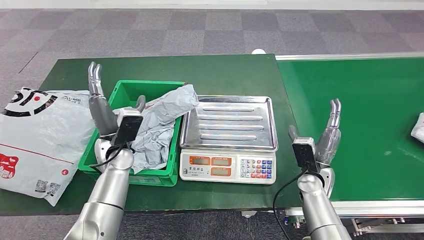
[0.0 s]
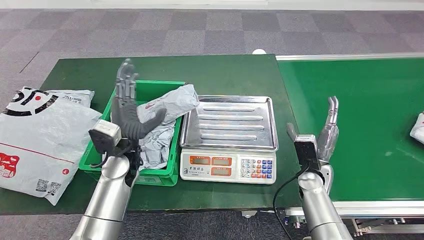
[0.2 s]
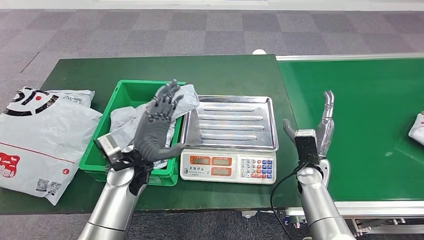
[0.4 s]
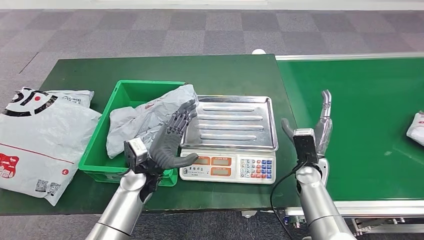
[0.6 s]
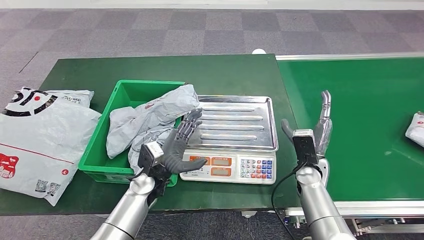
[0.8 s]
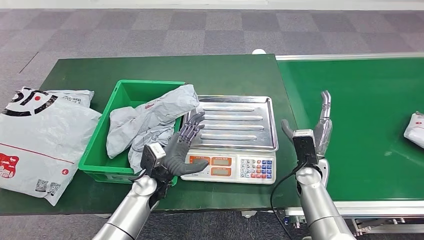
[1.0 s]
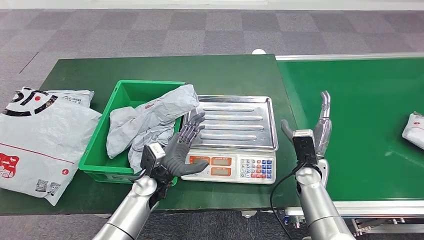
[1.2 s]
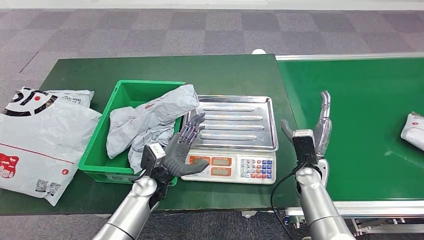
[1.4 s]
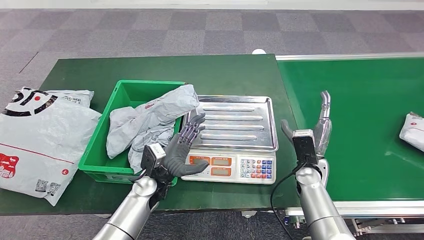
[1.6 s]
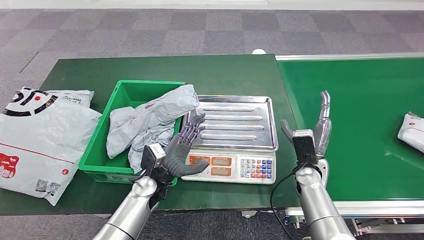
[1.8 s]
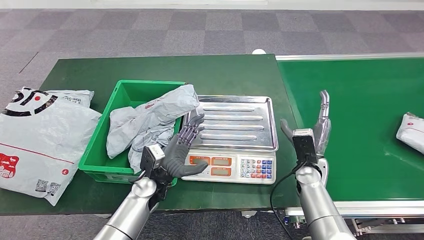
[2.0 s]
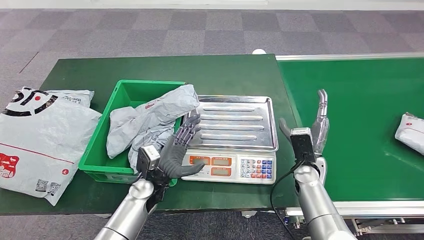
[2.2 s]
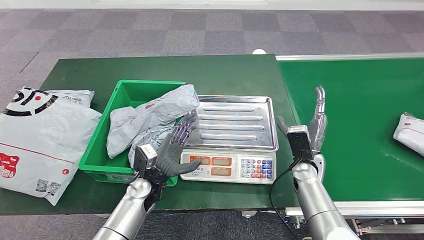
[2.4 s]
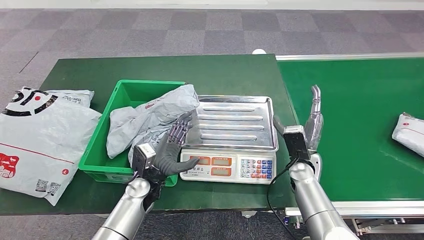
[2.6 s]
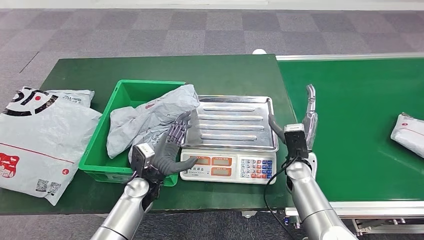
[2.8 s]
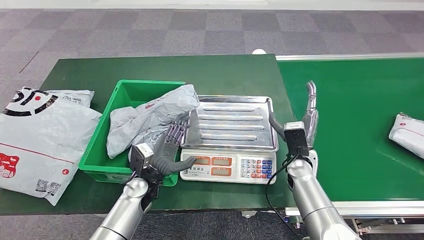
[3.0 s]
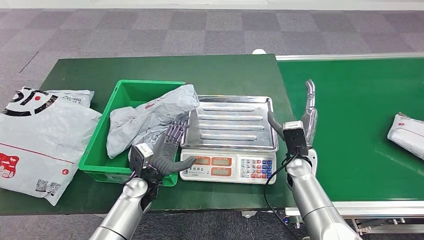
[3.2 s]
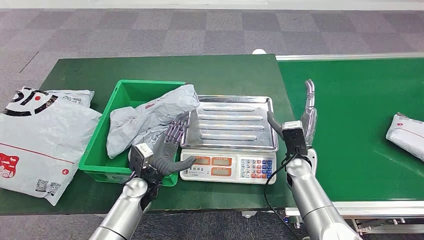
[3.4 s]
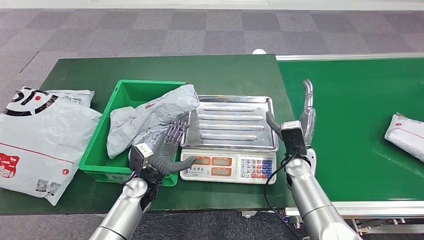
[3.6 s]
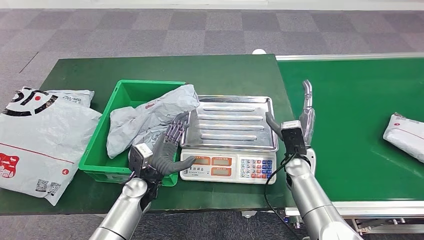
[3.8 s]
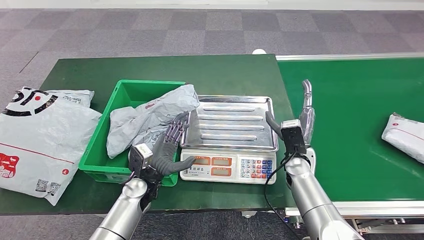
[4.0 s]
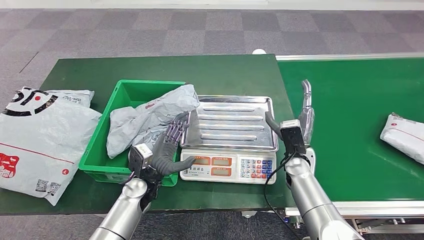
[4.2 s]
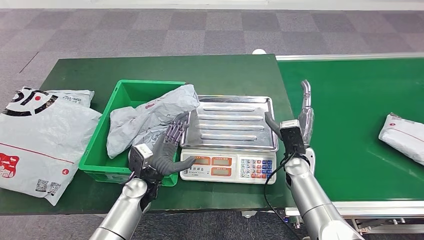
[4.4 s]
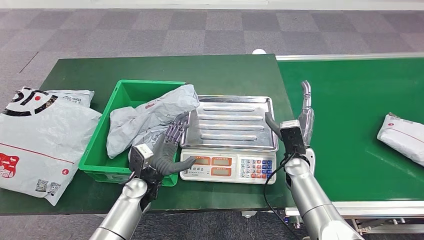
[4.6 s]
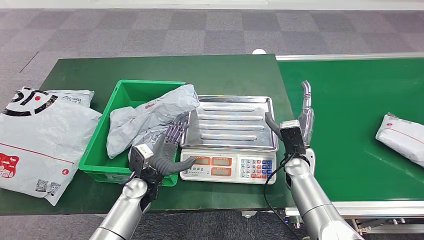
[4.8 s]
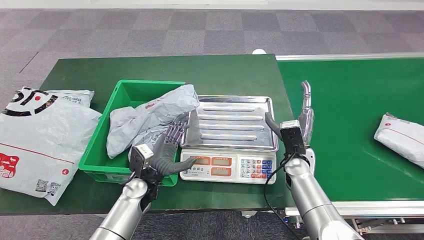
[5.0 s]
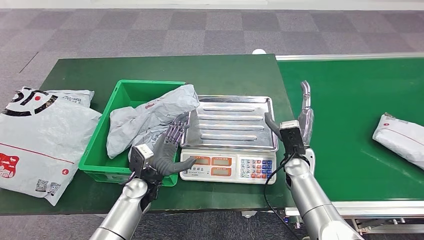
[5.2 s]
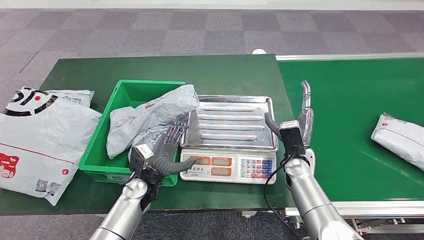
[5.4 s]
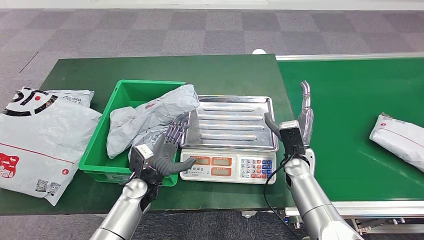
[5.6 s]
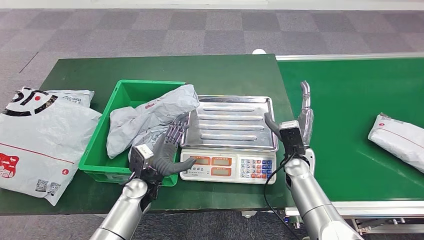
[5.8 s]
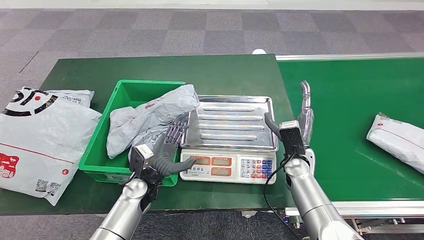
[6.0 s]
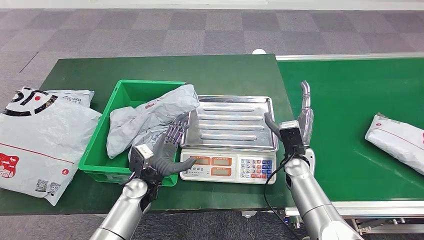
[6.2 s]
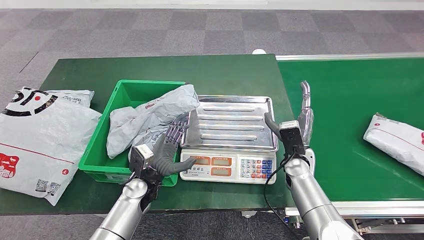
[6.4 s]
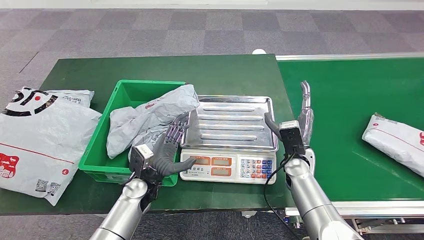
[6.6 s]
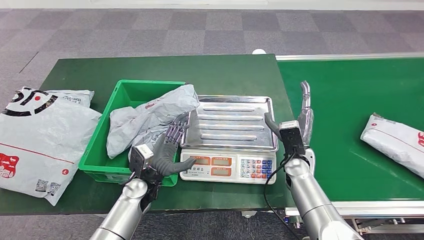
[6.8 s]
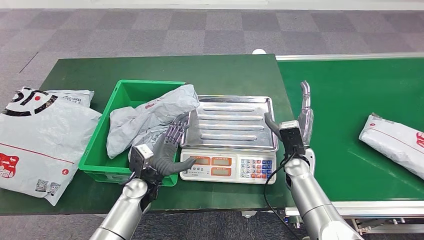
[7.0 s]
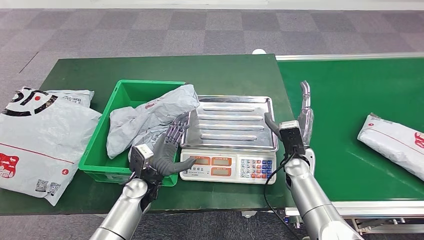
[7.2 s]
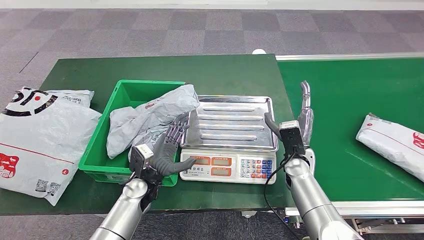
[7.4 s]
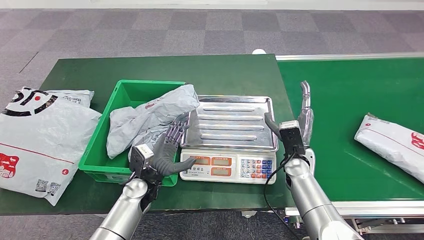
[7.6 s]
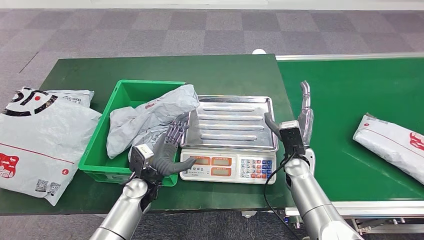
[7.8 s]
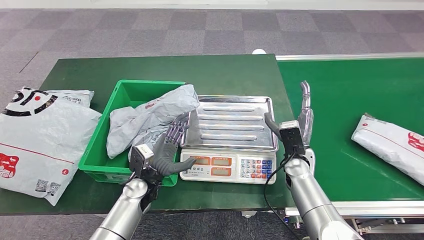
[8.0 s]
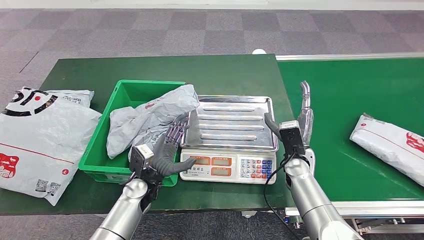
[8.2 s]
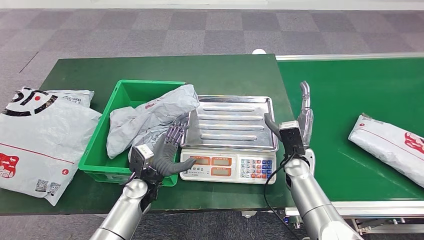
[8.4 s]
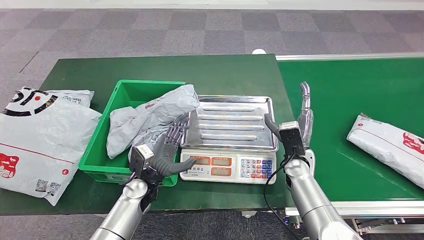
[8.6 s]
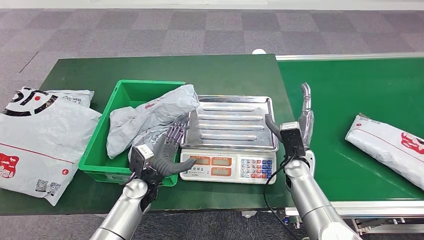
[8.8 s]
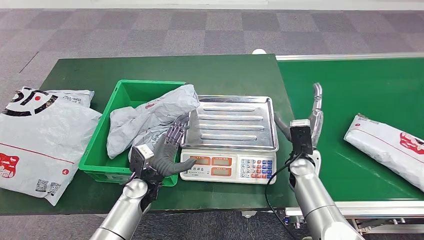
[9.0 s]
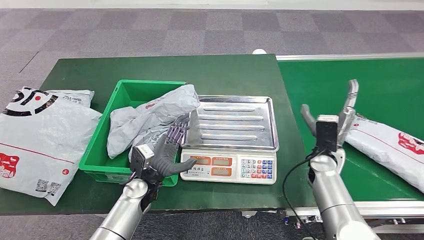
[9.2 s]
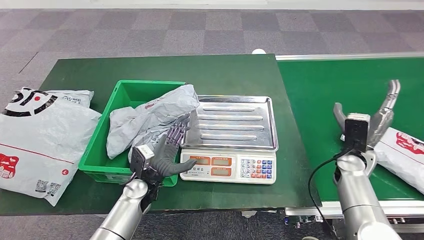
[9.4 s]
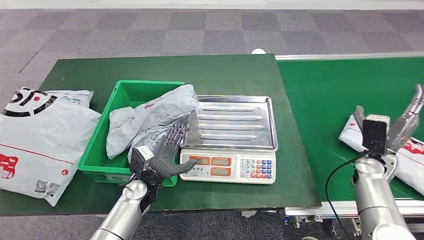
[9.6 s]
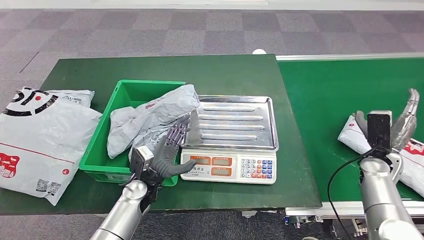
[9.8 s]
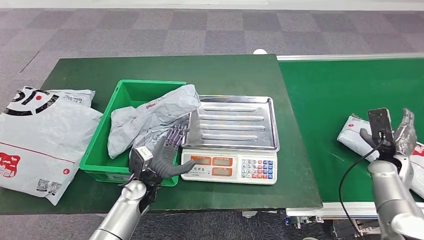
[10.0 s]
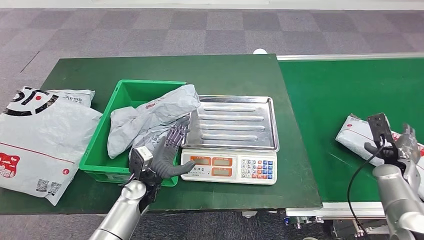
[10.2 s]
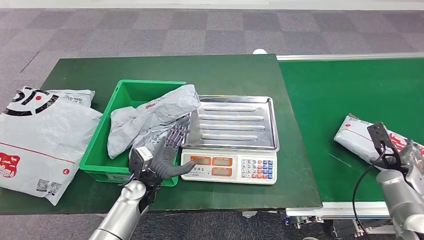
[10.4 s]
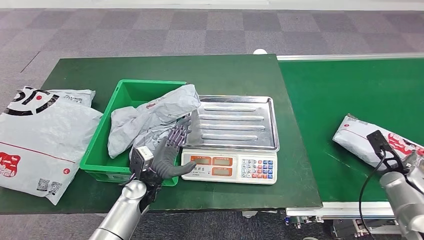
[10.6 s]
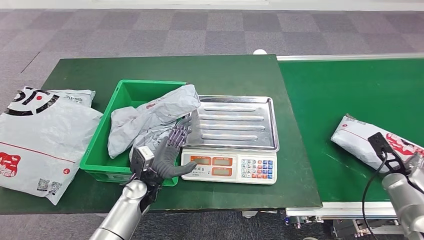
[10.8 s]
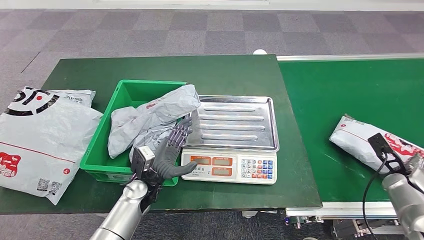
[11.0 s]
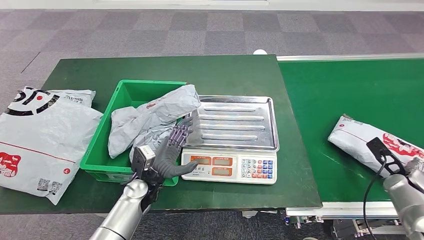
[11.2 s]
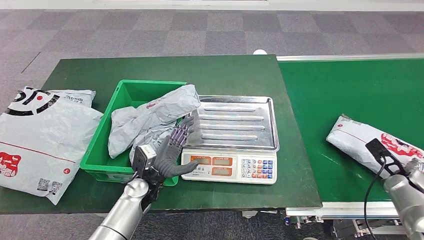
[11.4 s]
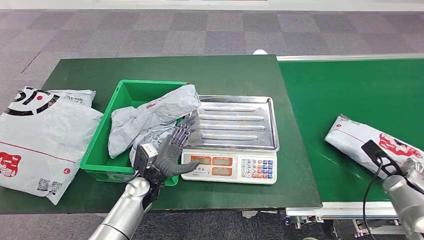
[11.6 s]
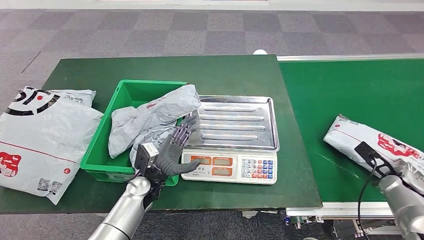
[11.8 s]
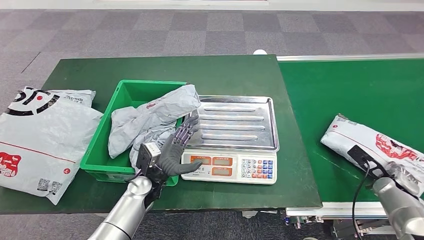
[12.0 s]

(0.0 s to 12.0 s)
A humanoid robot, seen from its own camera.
0.0 s - 1.6 s: The left hand heads to the right, downward and backward, covering about 15 cm.
1.6 s - 3.0 s: The hands make only small movements.
3.0 s - 7.6 s: The two hands keep their place.
7.6 s - 9.0 s: There are only small adjustments of the hands.
9.0 s - 10.4 s: The right hand shifts approximately 25 cm to the right.

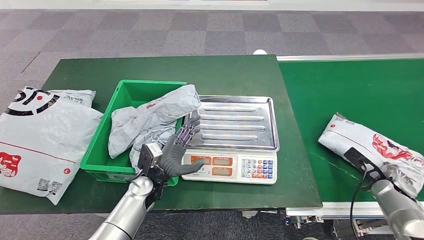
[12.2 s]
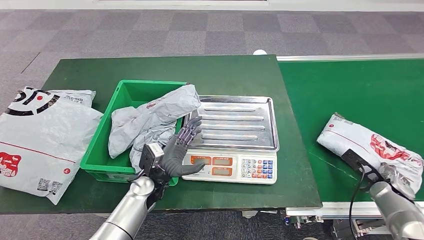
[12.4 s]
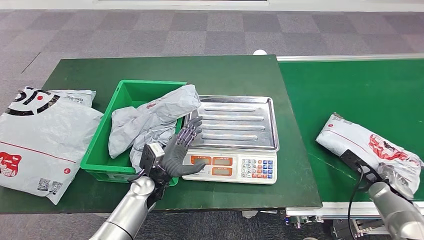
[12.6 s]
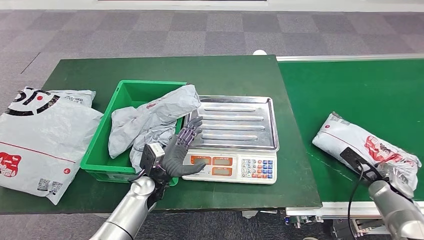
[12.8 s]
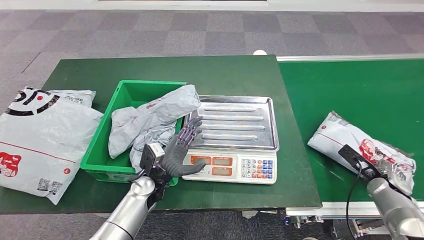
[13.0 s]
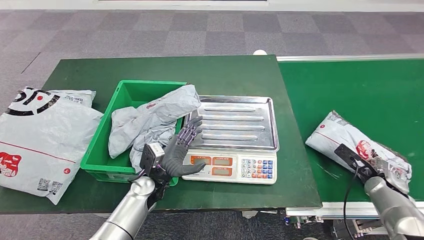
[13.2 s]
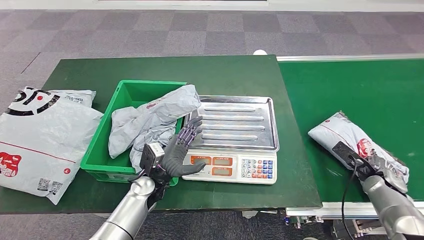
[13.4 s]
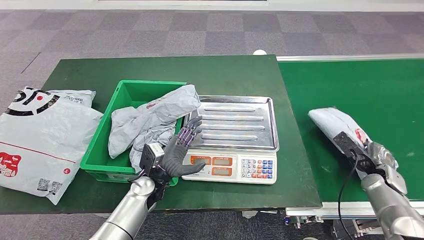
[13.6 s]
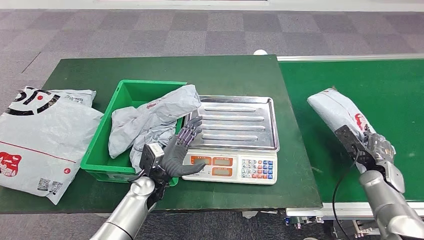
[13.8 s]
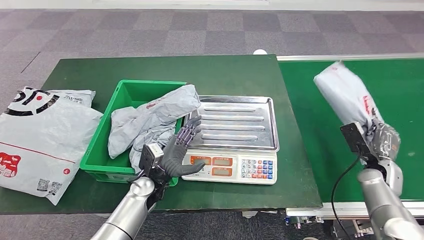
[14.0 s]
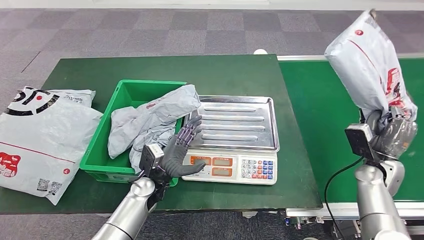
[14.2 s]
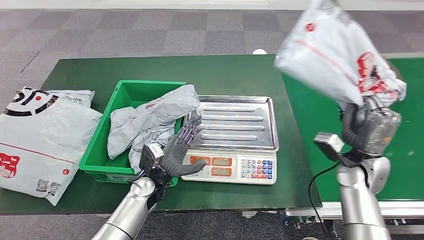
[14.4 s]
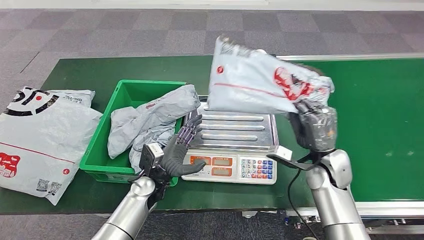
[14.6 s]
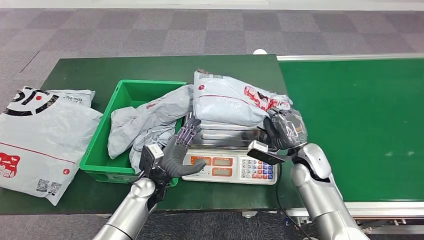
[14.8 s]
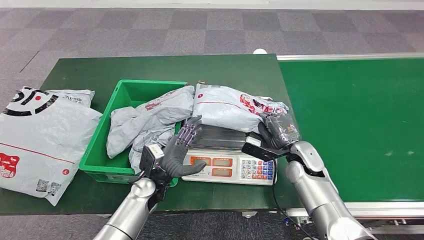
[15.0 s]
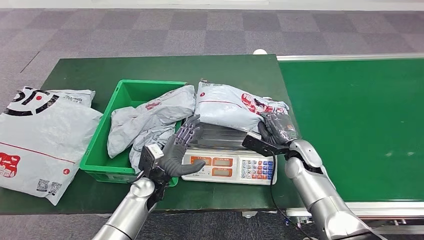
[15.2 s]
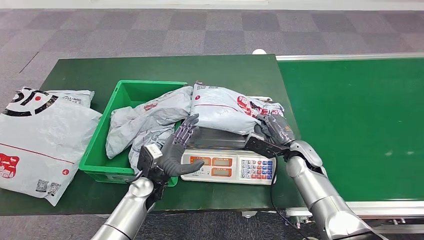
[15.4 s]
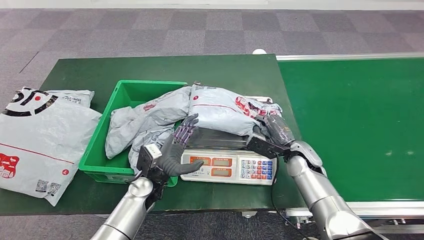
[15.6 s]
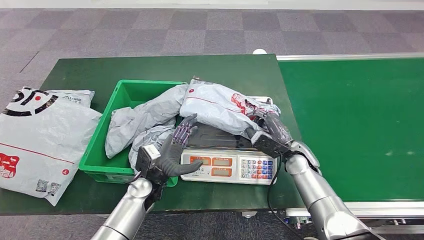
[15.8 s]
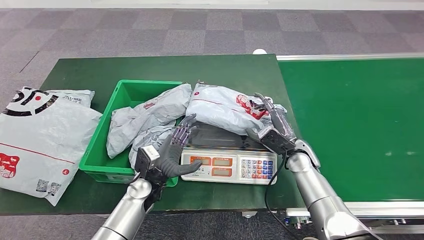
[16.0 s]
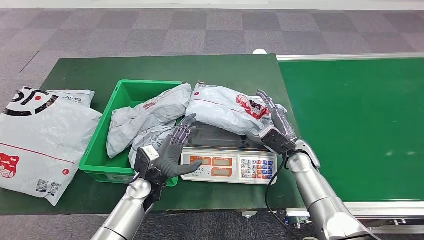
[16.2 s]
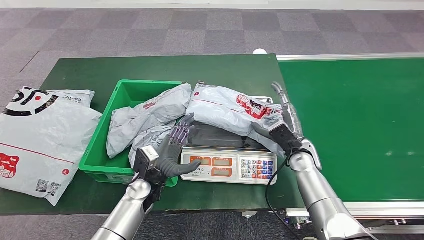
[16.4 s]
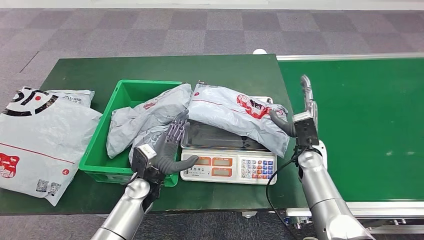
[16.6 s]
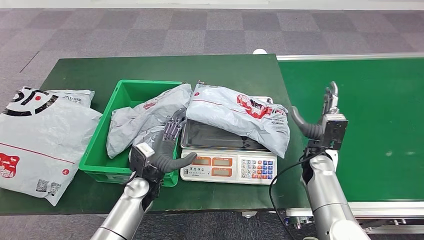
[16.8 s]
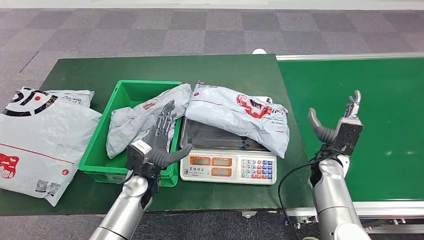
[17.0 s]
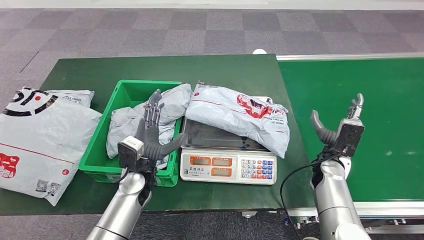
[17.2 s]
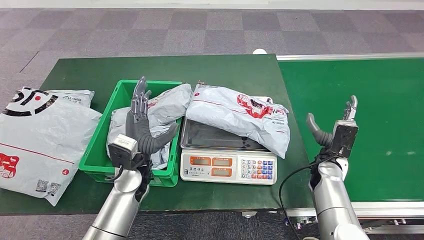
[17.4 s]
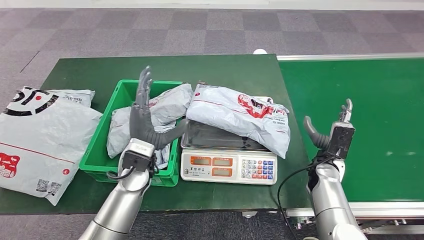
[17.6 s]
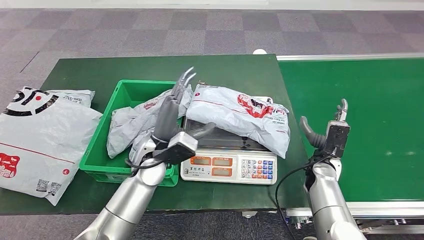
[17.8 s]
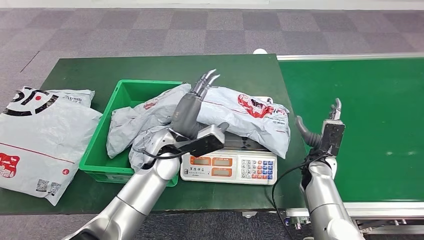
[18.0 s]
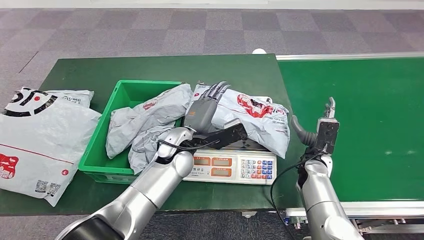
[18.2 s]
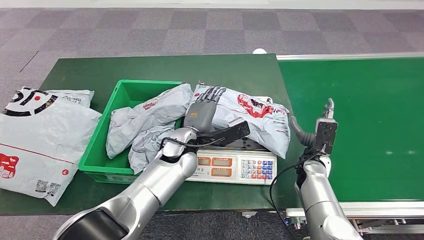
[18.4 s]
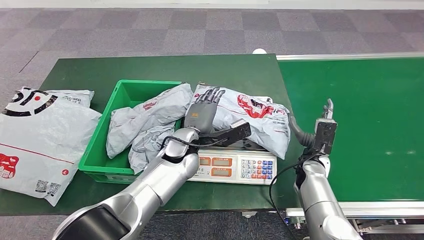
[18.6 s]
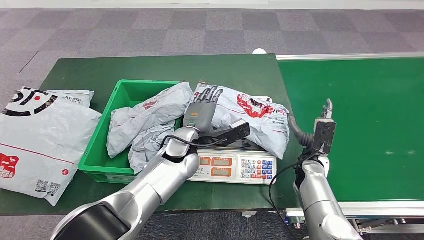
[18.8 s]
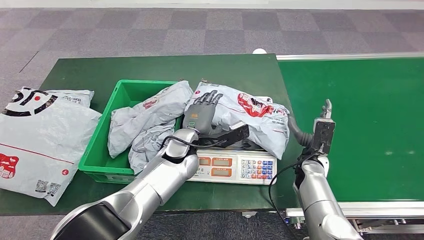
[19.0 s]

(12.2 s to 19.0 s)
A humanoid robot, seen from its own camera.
Step, 12.2 s - 14.2 s: Pick up the parcel from the conveyor belt.
Step, 14.4 s - 18.4 s: Place the parcel onto the inbound machine.
16.2 s - 17.6 s: The left hand travels upward by about 10 cm. Meanwhile the right hand moves to the right, about 5 cm.
17.6 s - 19.0 s: The left hand goes about 10 cm to the right.
